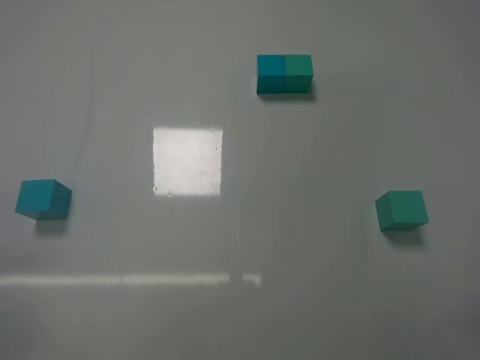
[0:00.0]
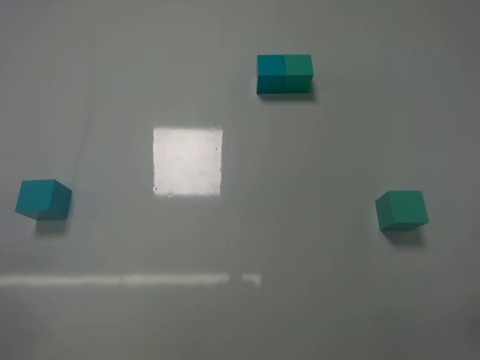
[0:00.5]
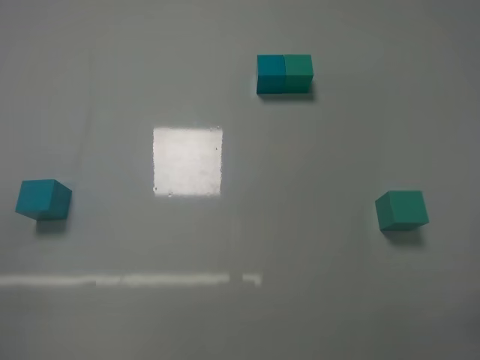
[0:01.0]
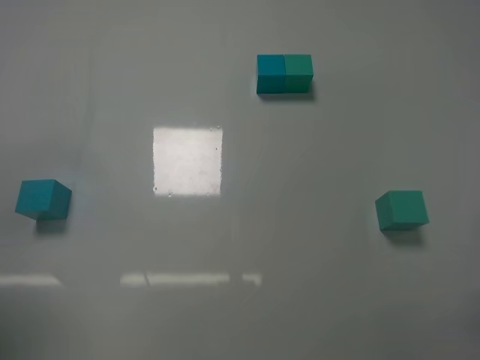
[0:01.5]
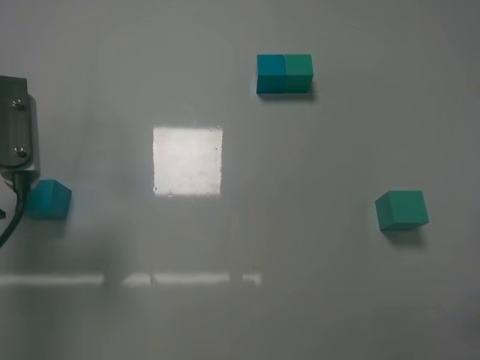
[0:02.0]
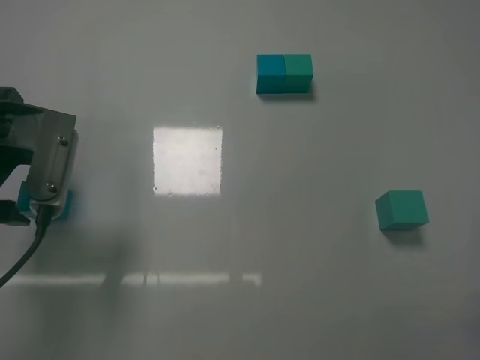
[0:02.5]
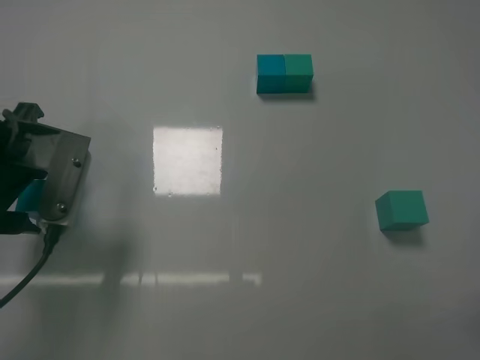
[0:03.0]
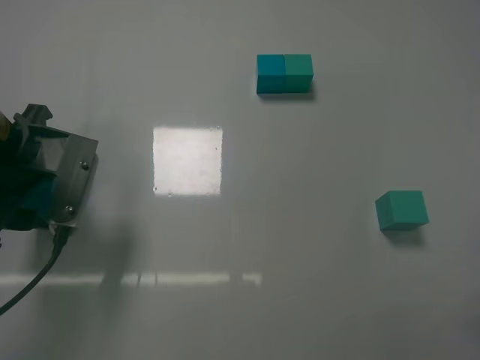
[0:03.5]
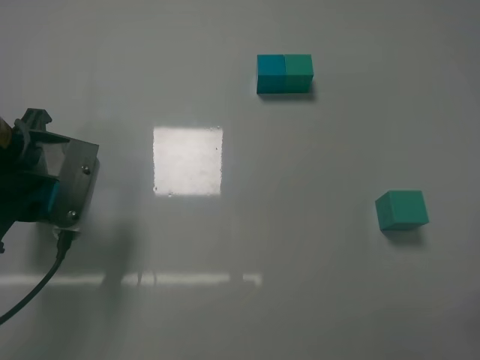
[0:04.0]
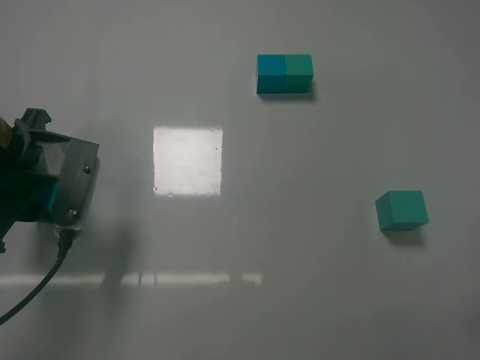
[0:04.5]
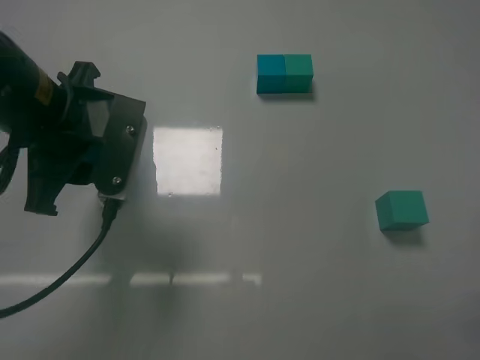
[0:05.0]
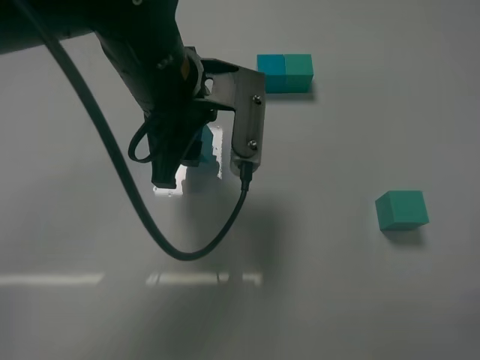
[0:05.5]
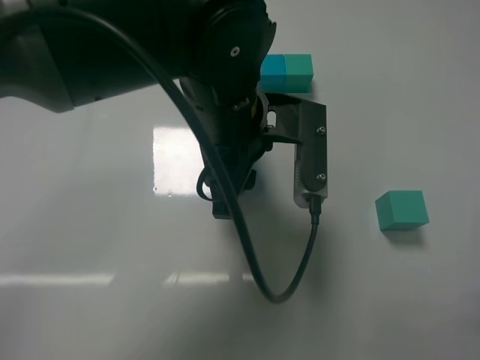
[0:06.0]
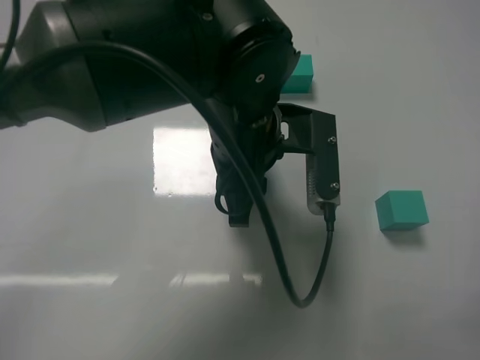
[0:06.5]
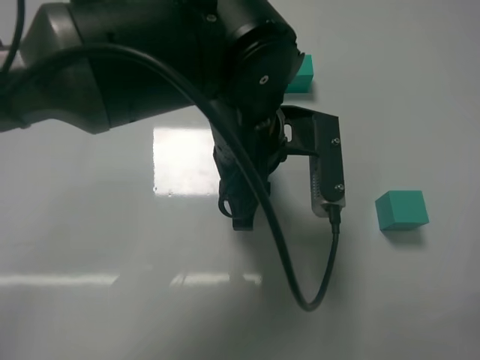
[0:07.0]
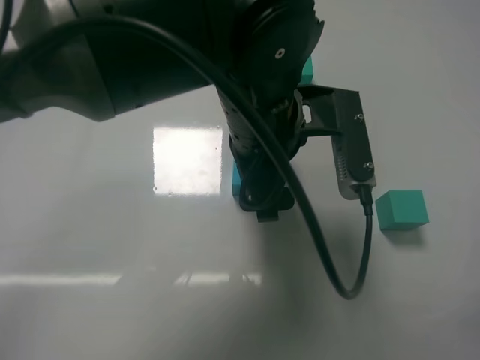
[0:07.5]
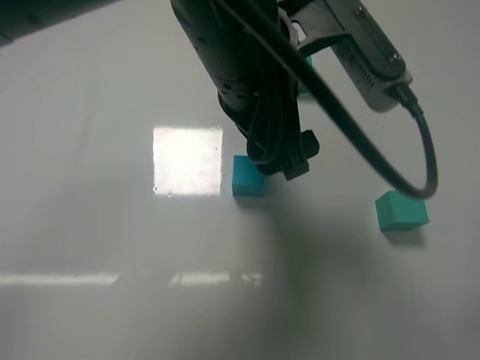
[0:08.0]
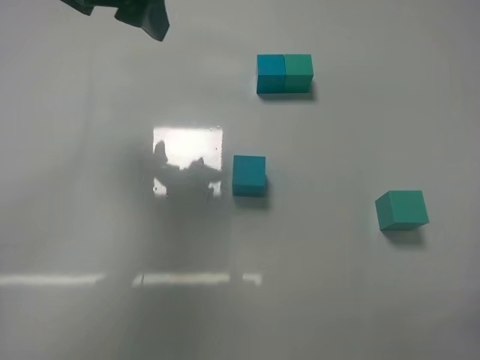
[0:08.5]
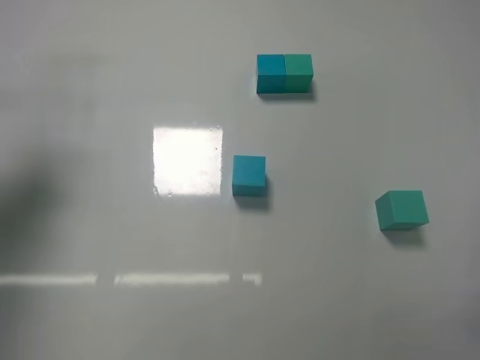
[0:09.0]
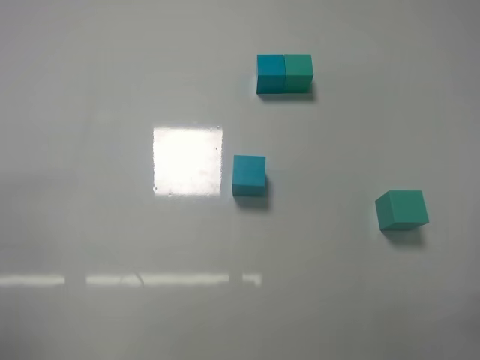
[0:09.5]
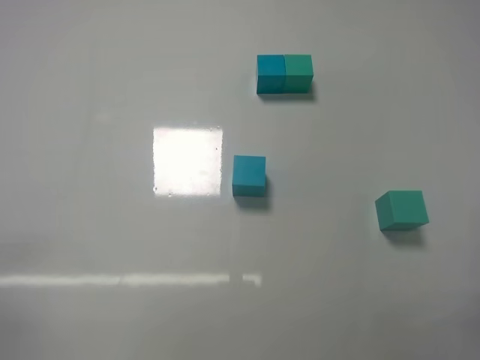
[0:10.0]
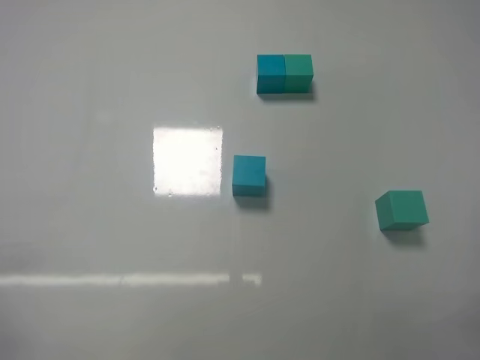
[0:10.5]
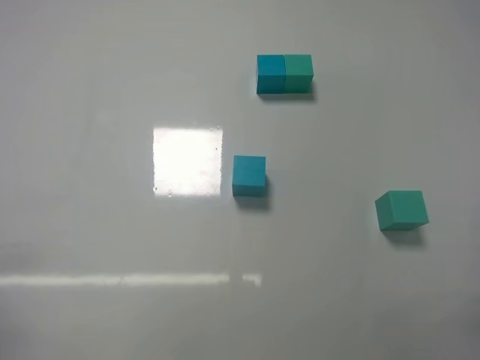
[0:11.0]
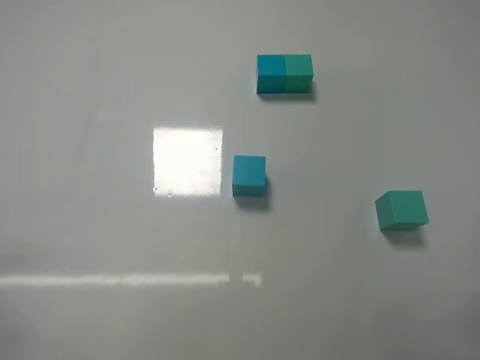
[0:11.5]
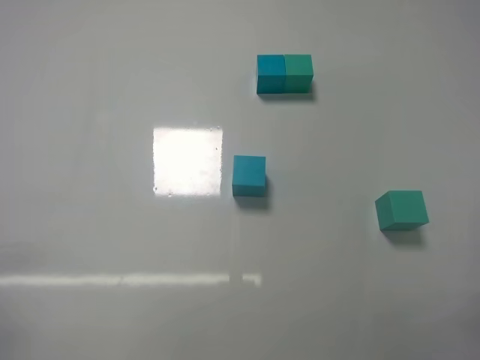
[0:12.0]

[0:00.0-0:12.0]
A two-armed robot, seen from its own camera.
Task of the whole recording: According to the building block template in front, assemble the scattered blocks together.
Step, 0:00.0 to 0:04.0: Grasp the blue block with left gripper.
Step, 0:04.5 to 0:07.0: Adjust the position of the cube with the left gripper.
0:00.0 to 0:02.0: The left gripper moves forward and upward, approximately 25 cm.
0:02.0 to 0:04.0: The left gripper is displaced downward by about 5 cm, and closes up.
0:04.0 to 0:06.0: The left gripper is displaced to the right by roughly 20 cm.
0:06.0 to 0:08.0: The left gripper travels upward by about 5 cm, and opens its fingers.
0:08.0 to 0:10.0: The left gripper travels to the left, backward and downward by roughly 40 cm.

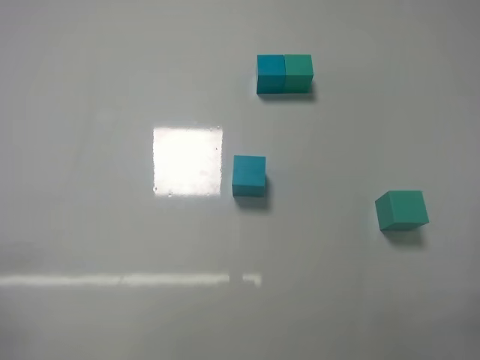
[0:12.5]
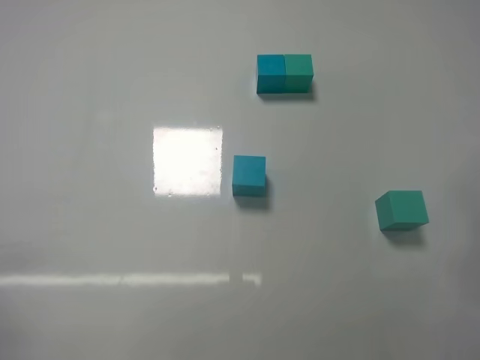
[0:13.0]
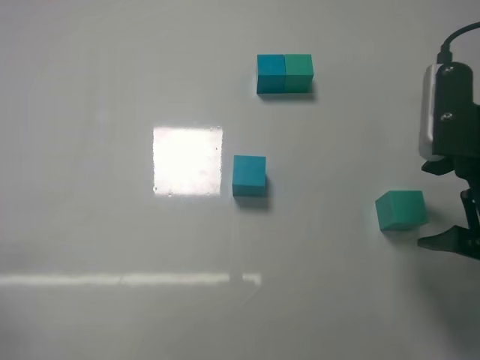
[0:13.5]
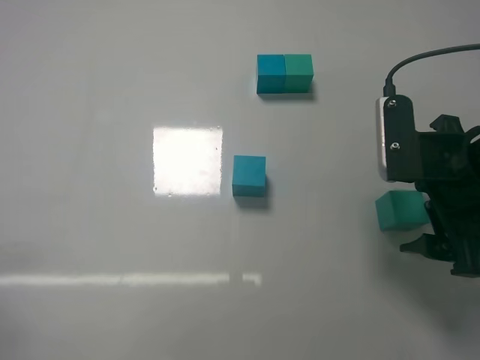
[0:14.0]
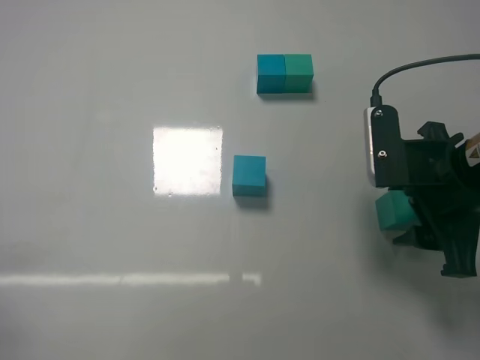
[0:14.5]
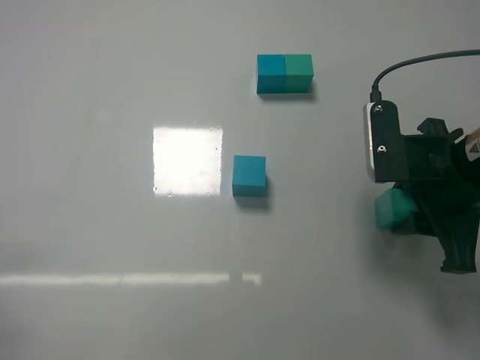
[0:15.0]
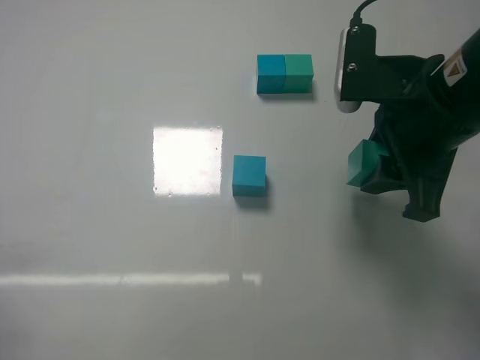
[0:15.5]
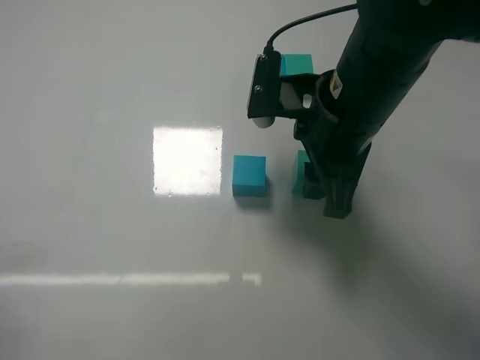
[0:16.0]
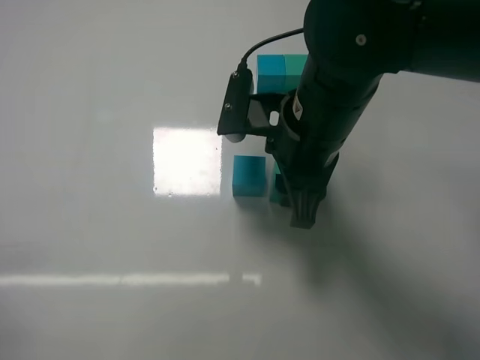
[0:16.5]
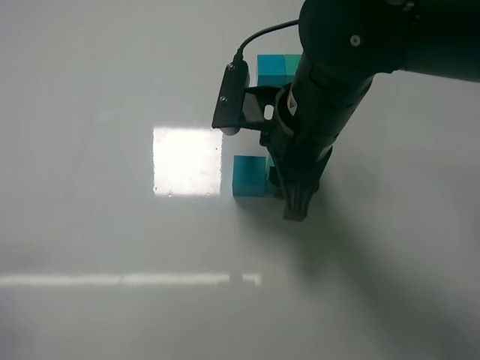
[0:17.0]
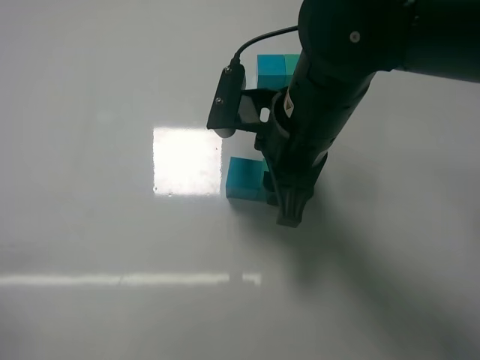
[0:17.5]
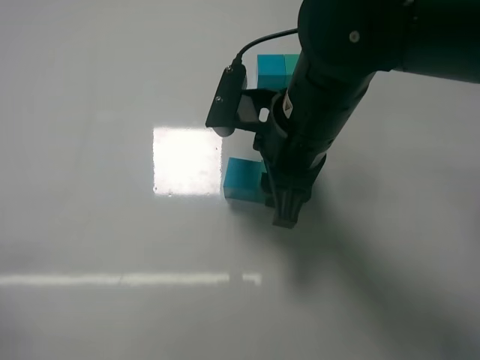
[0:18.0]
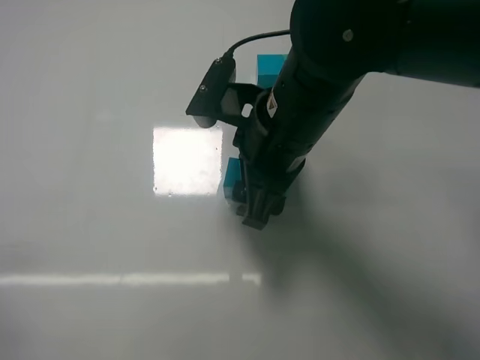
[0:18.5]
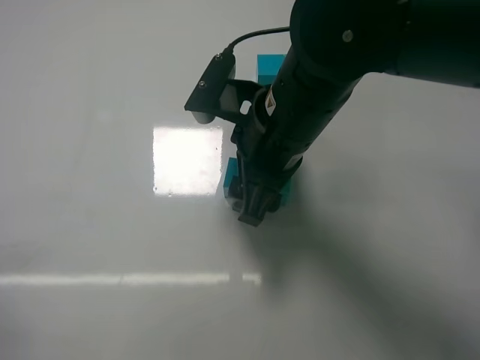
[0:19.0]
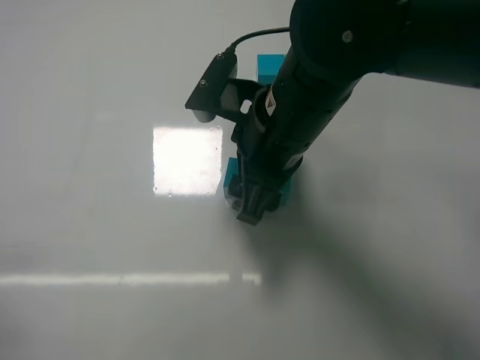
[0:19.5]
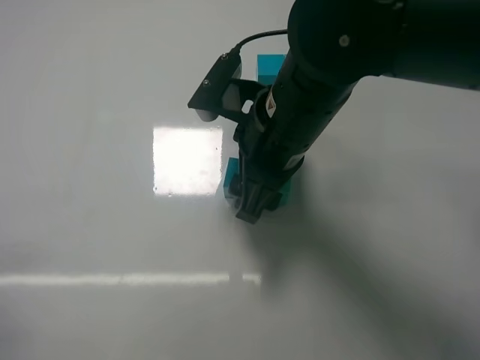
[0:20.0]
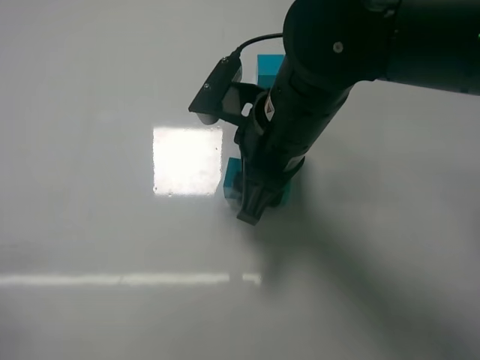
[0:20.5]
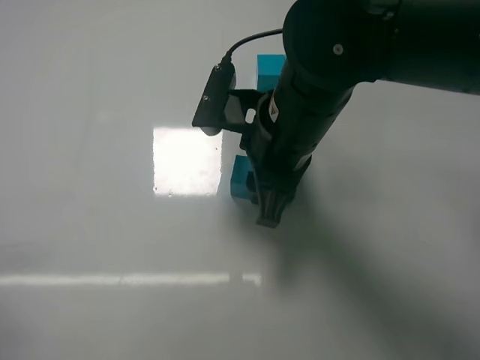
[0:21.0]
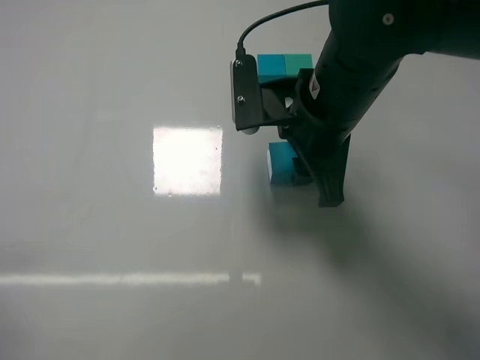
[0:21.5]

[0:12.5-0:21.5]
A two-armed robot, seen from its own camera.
Task of the whole recording: According to the building block template in front, assemble the scattered blocks together.
Step, 0:12.5 to 0:14.5: Grasp the green block with right gripper.
Step, 0:15.0 to 0:18.0: Put the green cube on the right of the blue cube with the right gripper.
0:12.5 to 0:14.5: The right gripper is displaced forward and to the left by about 25 cm, and closes.
0:14.5 to 0:17.0: The right gripper shifts about 15 cm to the left, and closes.
0:17.0 to 0:19.5: The right gripper opens.
0:19.5 to 0:21.5: The right gripper closes up.

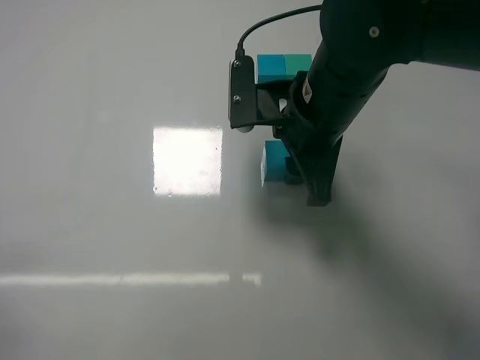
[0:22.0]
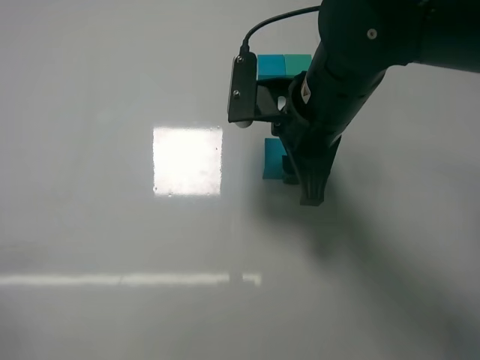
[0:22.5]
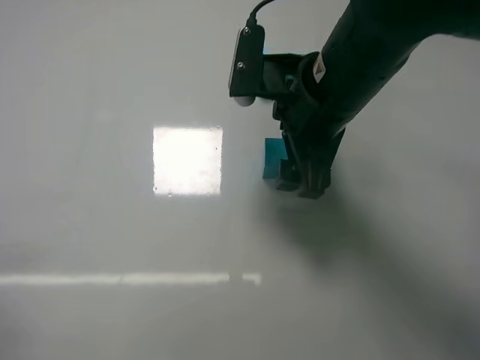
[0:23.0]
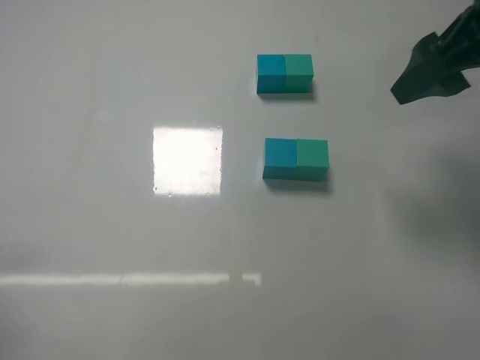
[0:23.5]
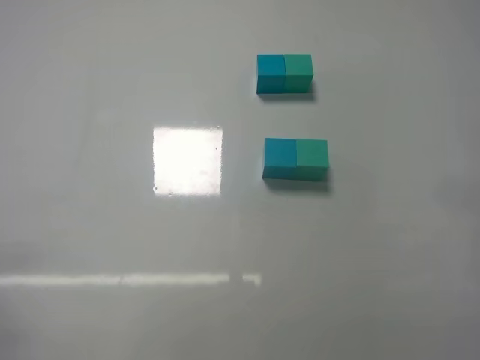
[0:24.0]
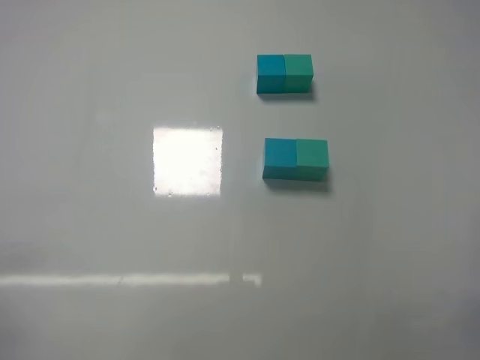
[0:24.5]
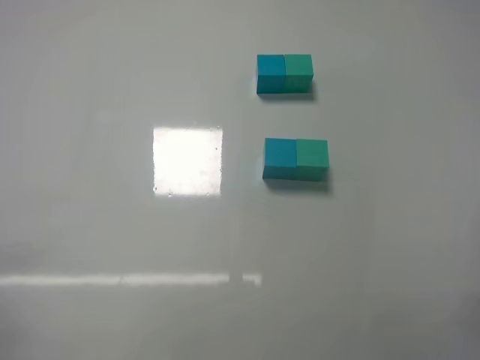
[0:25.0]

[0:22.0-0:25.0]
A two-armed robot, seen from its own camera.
Task of the whole recording: According to the building block template in front, assemble the scattered blocks together.
0:22.0 to 0:23.5: The right gripper heads to the right and upward, covering some 20 cm, and opens its fingers.
0:23.5 to 0:25.0: The right gripper moves backward and downward, roughly 30 cm.

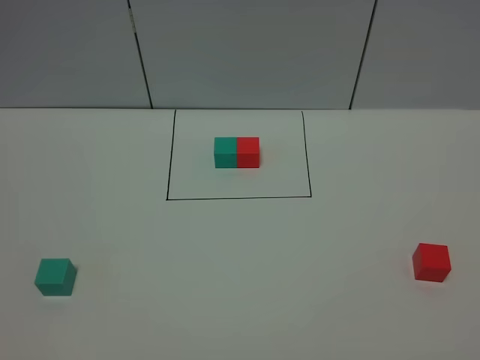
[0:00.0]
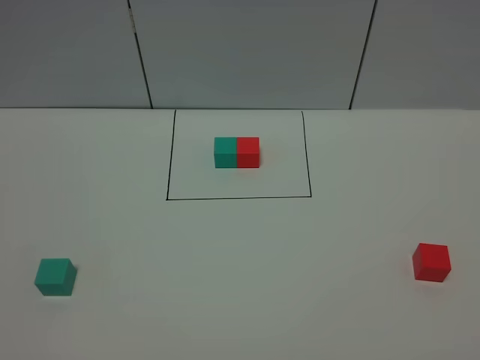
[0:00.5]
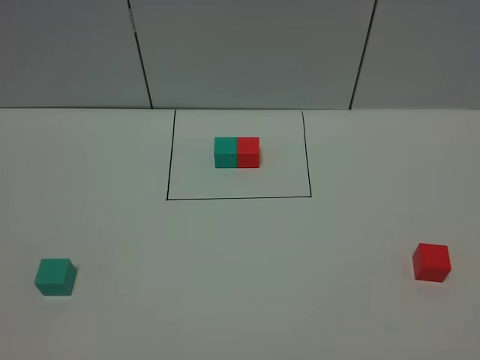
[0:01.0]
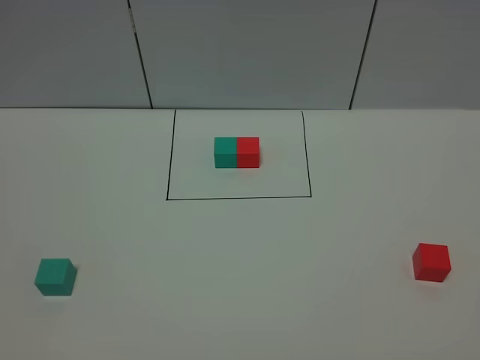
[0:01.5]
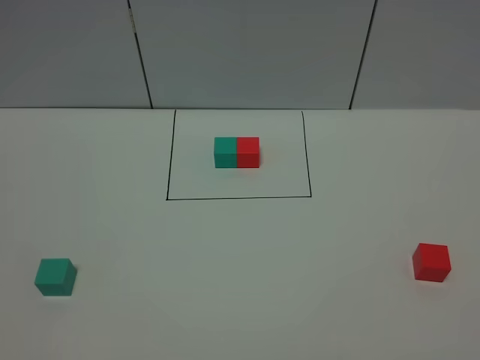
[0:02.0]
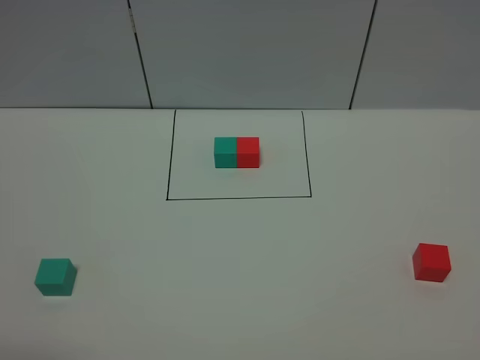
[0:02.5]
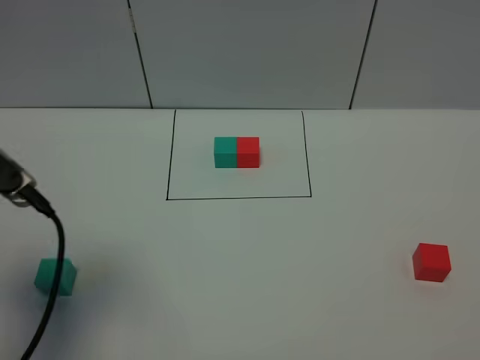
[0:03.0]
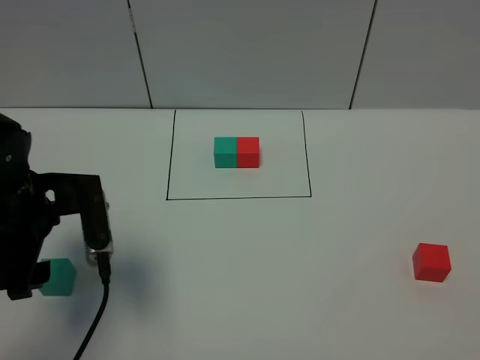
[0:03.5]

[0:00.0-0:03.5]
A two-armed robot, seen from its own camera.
Task of the whole recording: According to the building block template in front, assemble the scattered blocks together.
0:02.0 to 0:03.5: The left gripper goes about 30 cm forward.
